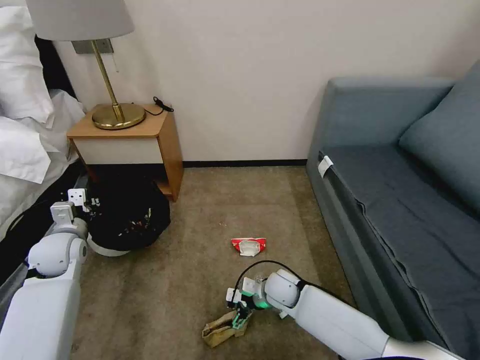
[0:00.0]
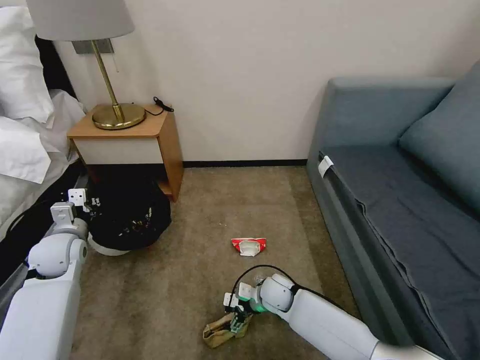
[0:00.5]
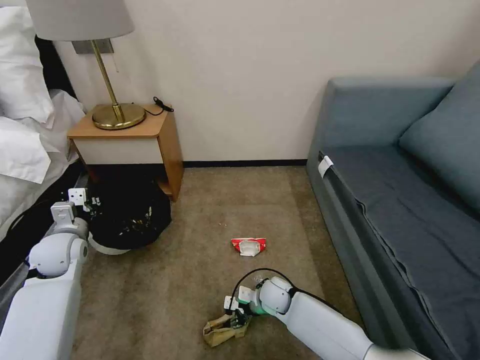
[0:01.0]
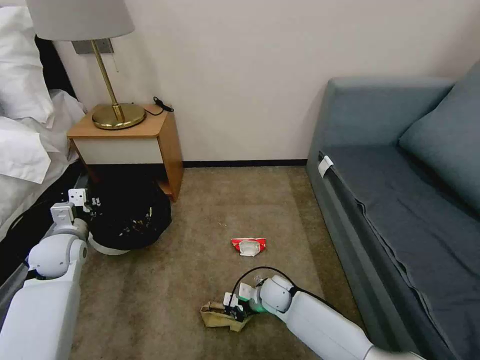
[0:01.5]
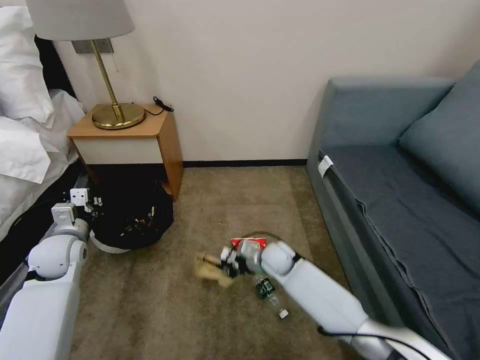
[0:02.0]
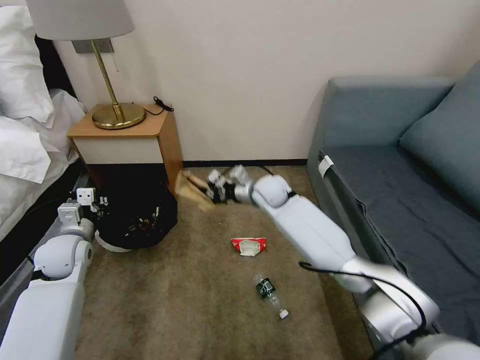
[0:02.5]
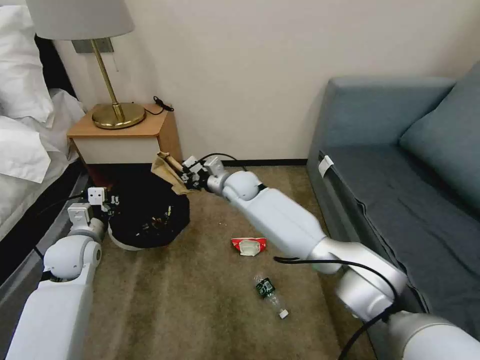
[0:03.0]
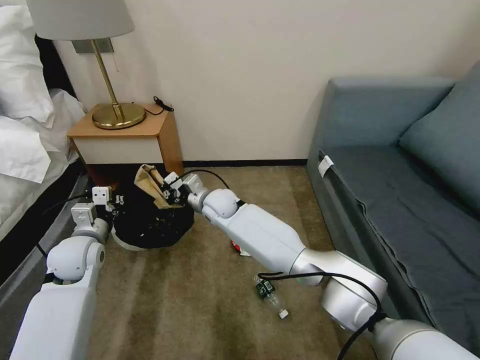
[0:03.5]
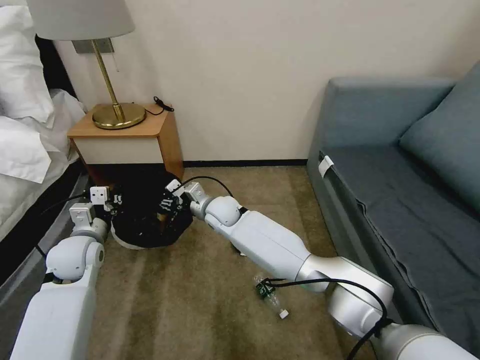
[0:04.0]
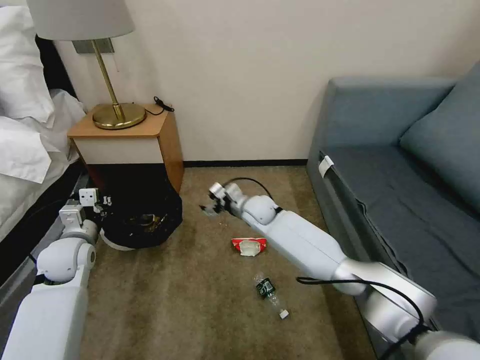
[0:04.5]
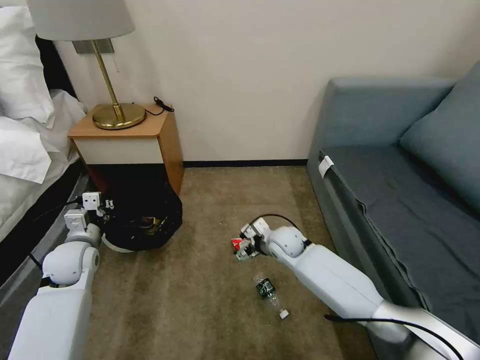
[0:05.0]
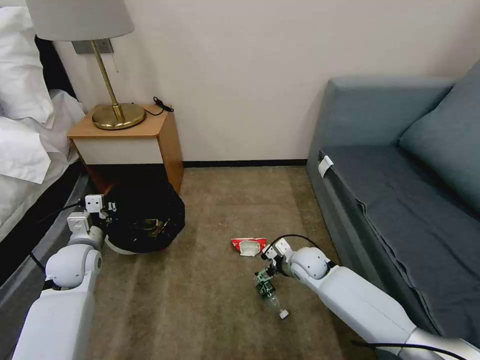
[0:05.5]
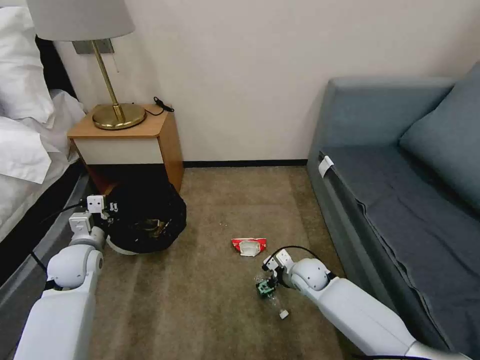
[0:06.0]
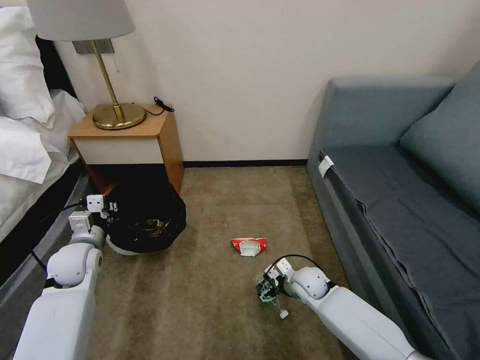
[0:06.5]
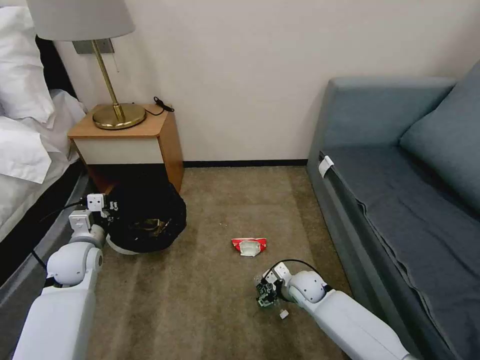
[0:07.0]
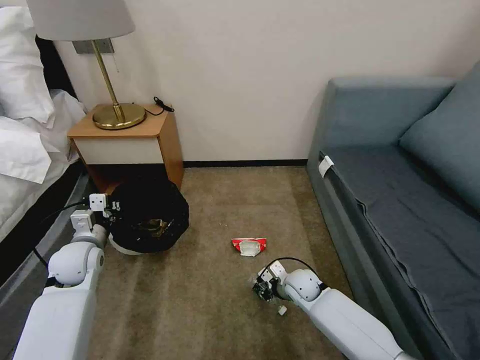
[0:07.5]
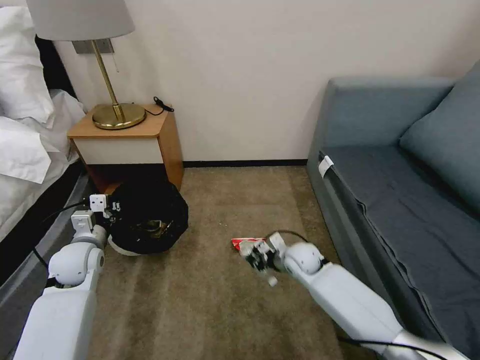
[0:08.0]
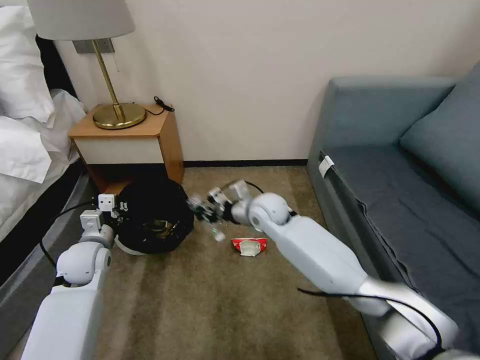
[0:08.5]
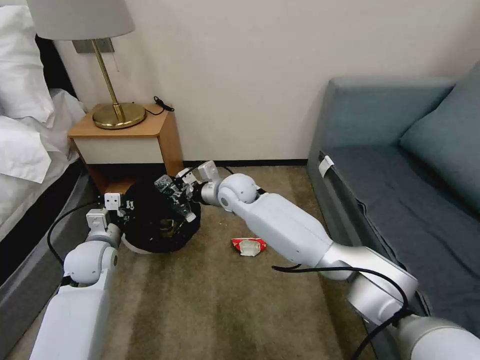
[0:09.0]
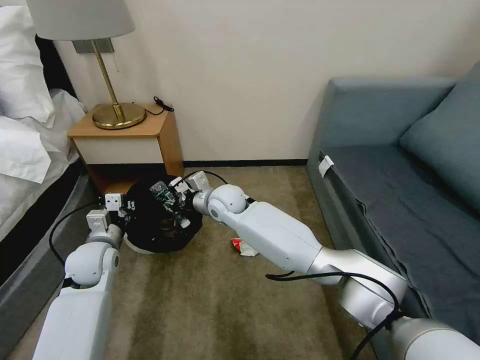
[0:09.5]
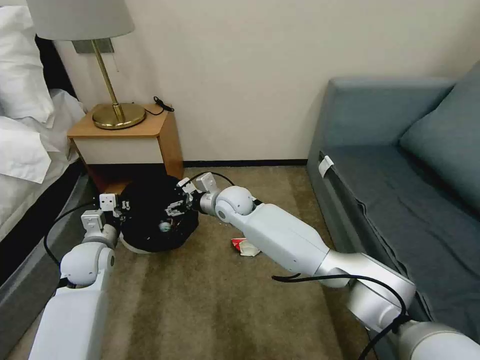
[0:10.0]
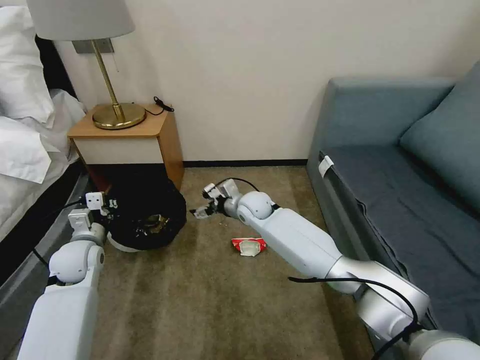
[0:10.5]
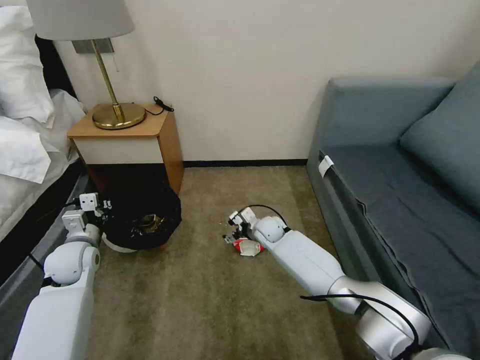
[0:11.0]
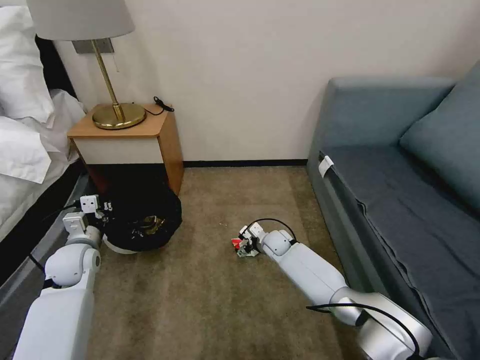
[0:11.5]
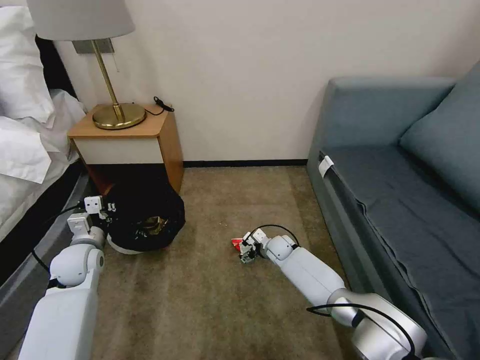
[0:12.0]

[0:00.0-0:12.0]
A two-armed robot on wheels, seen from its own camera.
Task of the whole recording: Pick up the trash bin, then pick up the garbage on the floor and place it into the trash bin.
0:00.0 to 0:02.0: The right gripper travels forward by roughly 5 cm, and closes.
0:02.0 to 0:04.0: The right gripper travels to the left, upward and forward by some 20 cm, and opens its fingers.
0:04.0 to 0:06.0: The right gripper travels to the right, downward and backward by roughly 30 cm, and opens.
0:06.0 to 0:08.0: The right gripper closes up.
0:08.0 to 0:10.0: The right gripper shifts roughly 25 cm to the left, upward and forward, and opens its fingers.
0:10.0 to 0:12.0: The right gripper travels downward and to the right by about 30 cm.

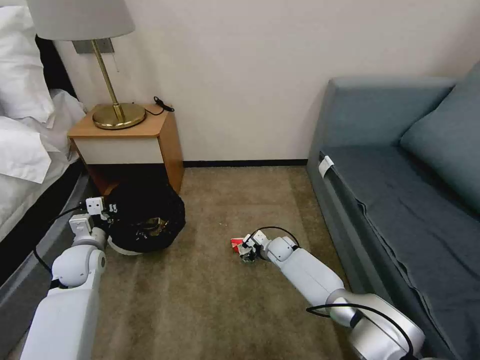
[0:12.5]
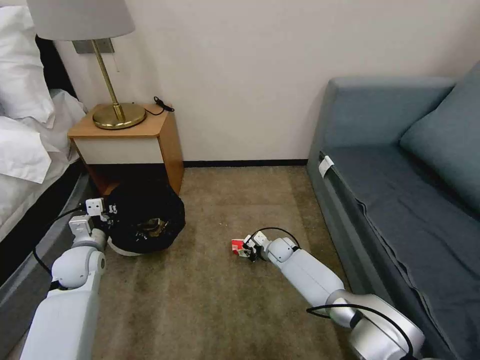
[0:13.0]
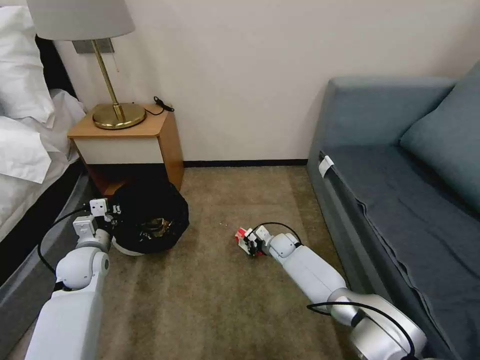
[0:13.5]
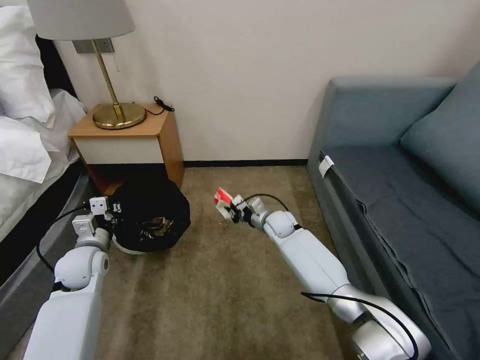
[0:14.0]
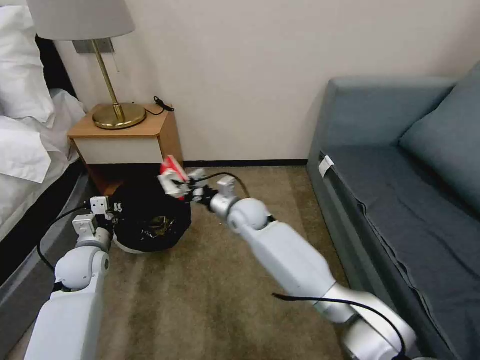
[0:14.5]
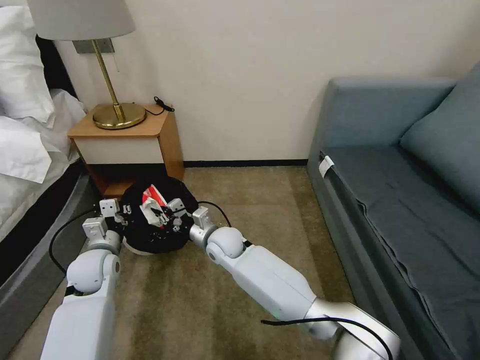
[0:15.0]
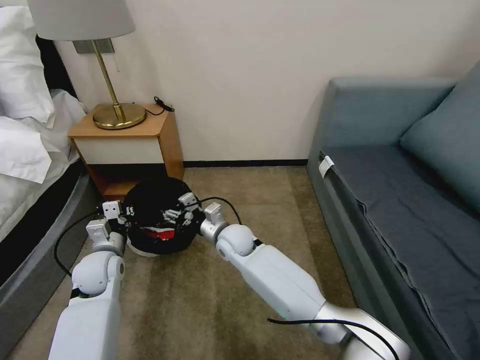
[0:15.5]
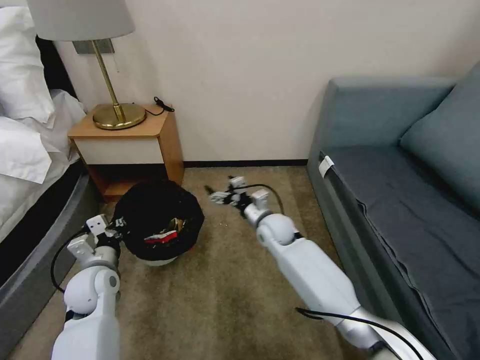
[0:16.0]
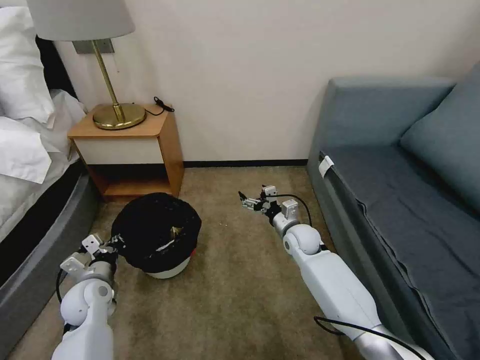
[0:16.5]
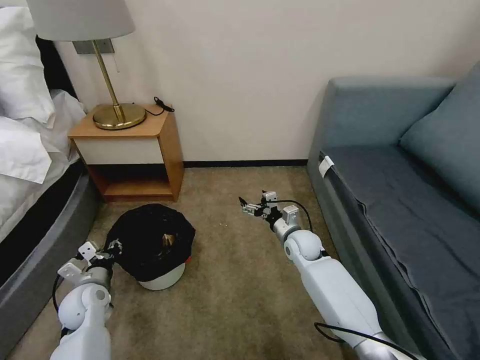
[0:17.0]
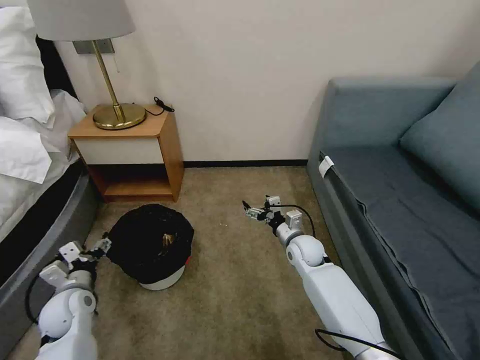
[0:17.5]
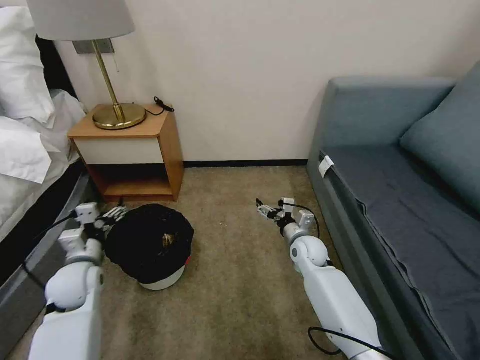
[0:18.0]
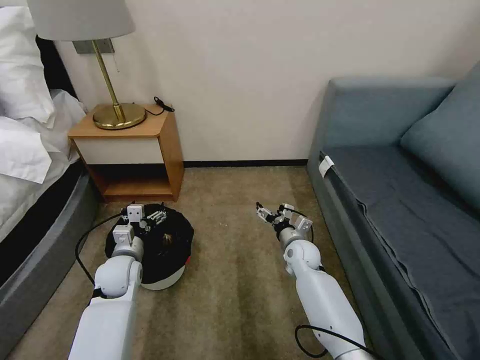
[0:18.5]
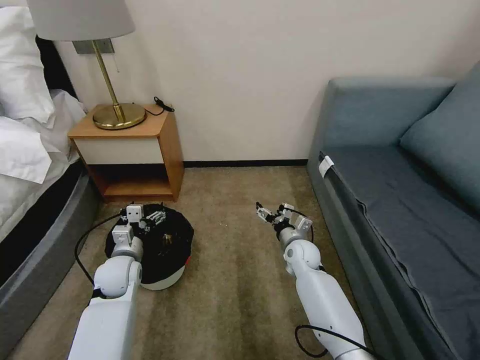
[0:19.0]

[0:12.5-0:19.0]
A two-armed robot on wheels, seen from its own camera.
Task of the whole recording: Pick up the trash bin, then pick up the garbage on the floor and place it into the trash bin.
0:12.5 to 0:14.5: The right gripper shifts some 25 cm upward and to the left, and closes up.
0:14.5 to 0:17.0: The right gripper heads to the right and downward, covering approximately 20 cm, and opens up. The left gripper shifts some 10 cm downward and backward.
0:17.0 to 0:19.0: The left gripper shifts about 10 cm to the right and forward, and opens.

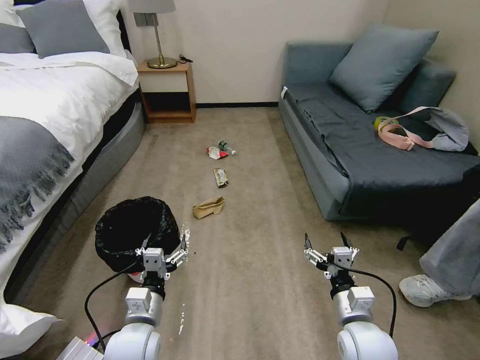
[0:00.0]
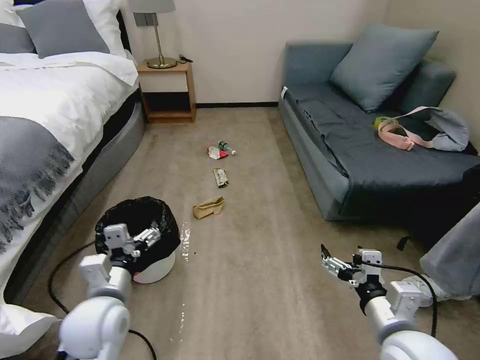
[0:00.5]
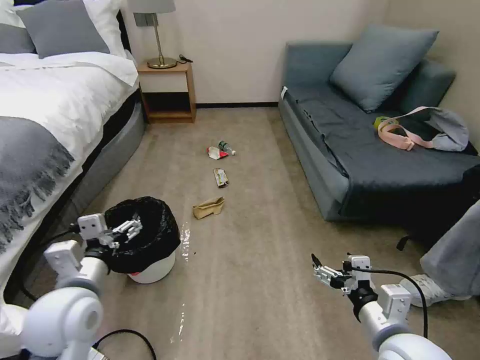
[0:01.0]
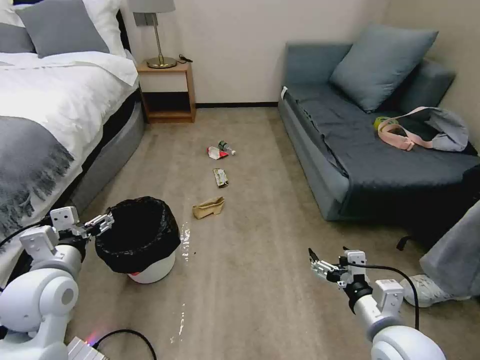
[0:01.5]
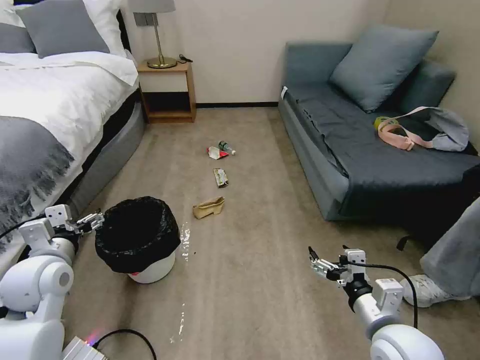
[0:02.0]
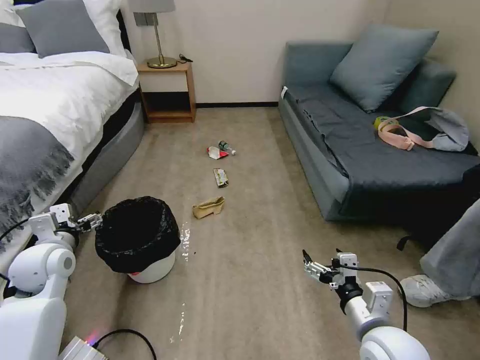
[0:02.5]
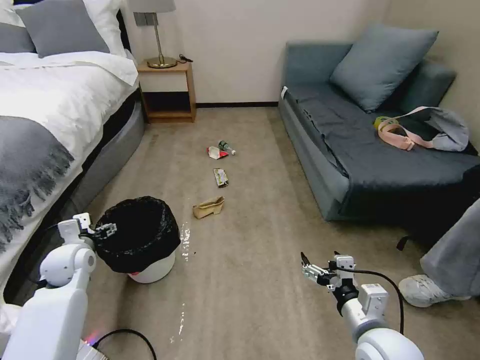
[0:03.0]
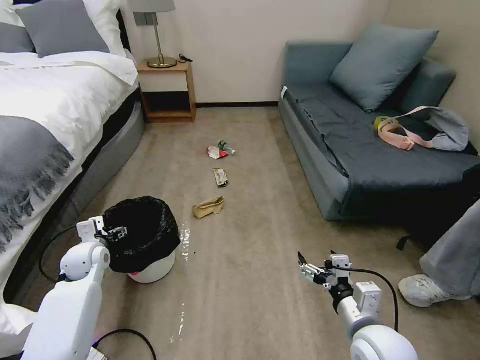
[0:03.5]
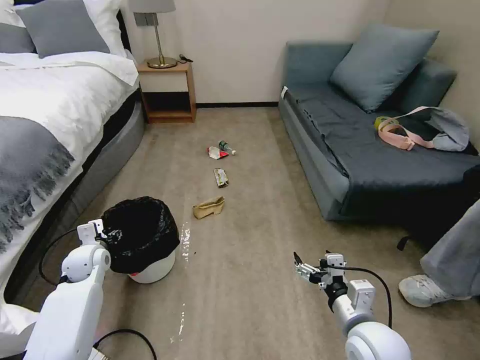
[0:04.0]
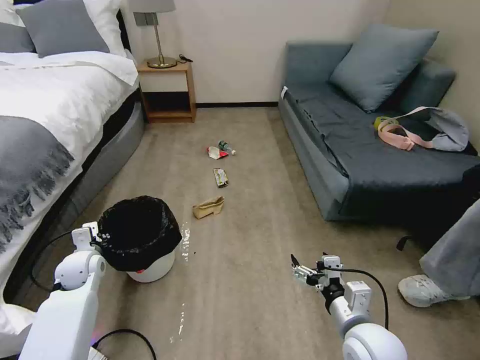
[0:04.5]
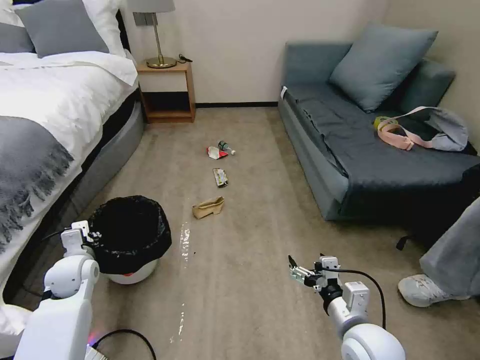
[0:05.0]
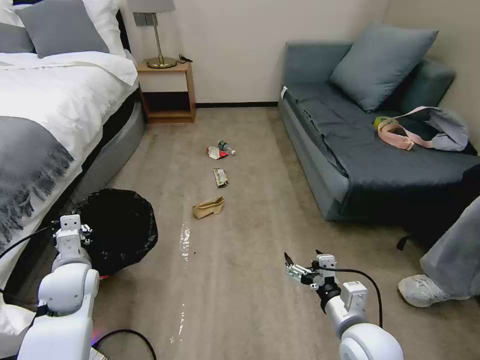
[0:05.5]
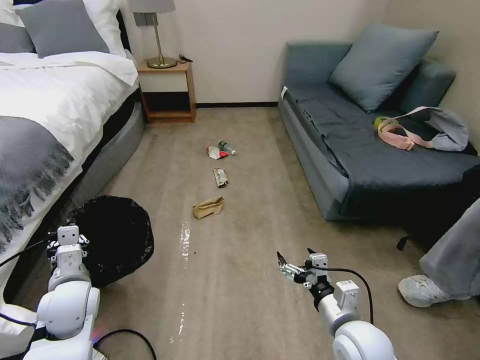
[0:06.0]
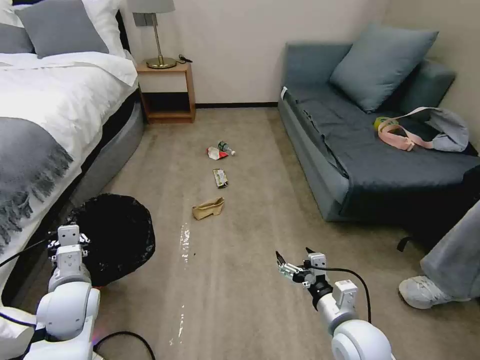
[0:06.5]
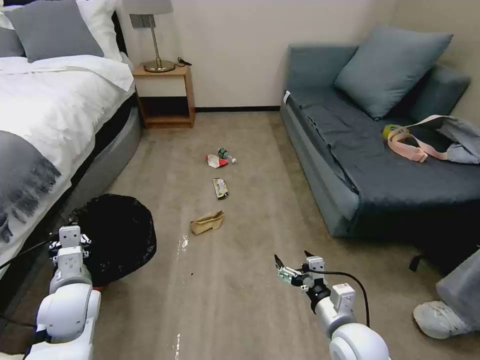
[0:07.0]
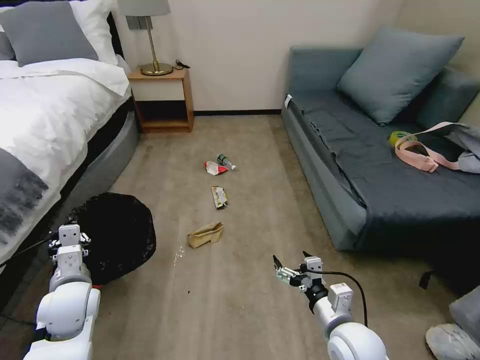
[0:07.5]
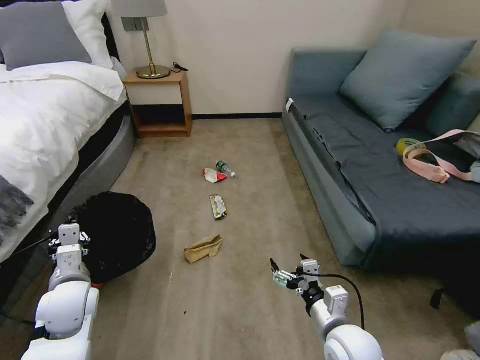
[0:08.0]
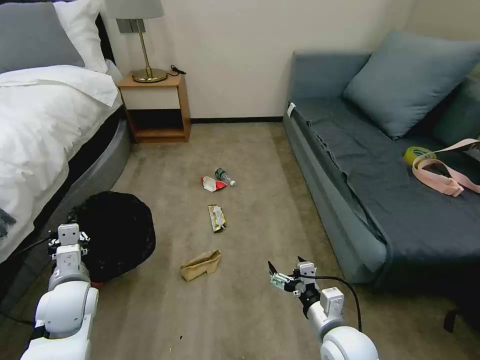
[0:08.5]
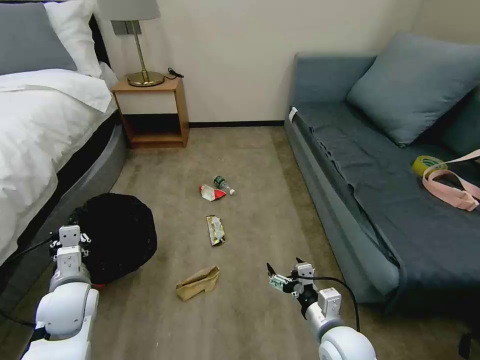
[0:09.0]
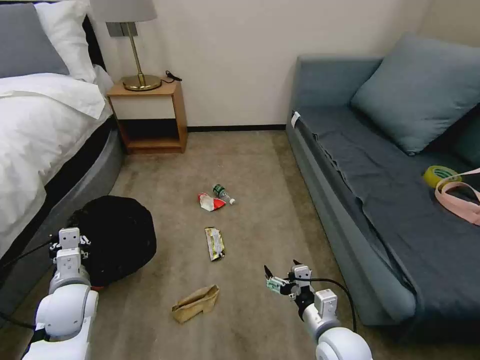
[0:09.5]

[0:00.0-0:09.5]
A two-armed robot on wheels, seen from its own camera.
Task of the whole recording: Pick up the trash bin, then pick up the garbage on the floor and place it into the trash bin.
0:02.0 to 0:04.0: The left gripper is displaced downward and forward by some 15 cm, and closes.
0:04.0 to 0:05.5: The left gripper is displaced backward and upward by approximately 10 cm, and closes.
